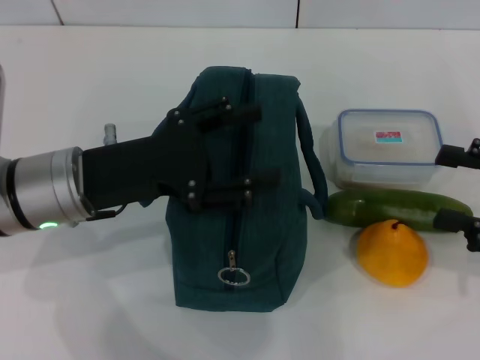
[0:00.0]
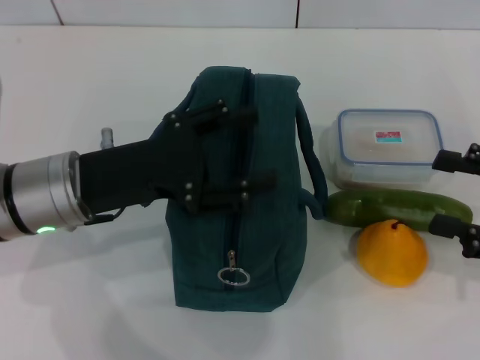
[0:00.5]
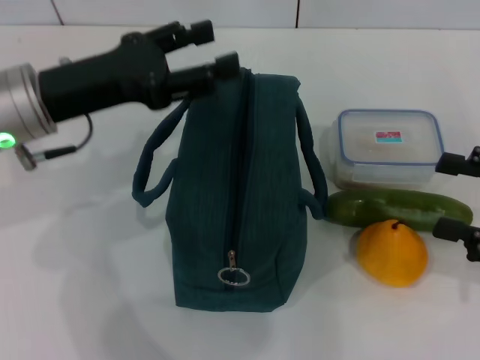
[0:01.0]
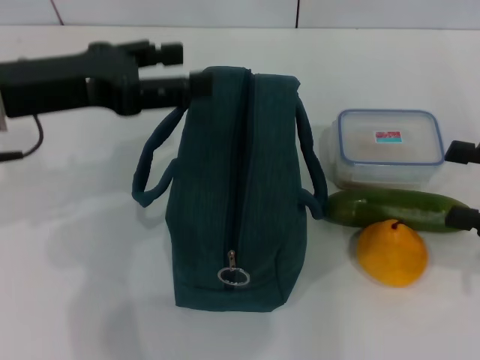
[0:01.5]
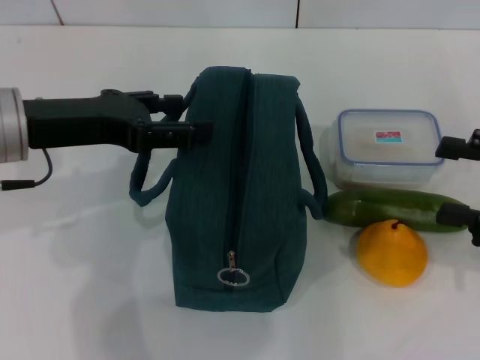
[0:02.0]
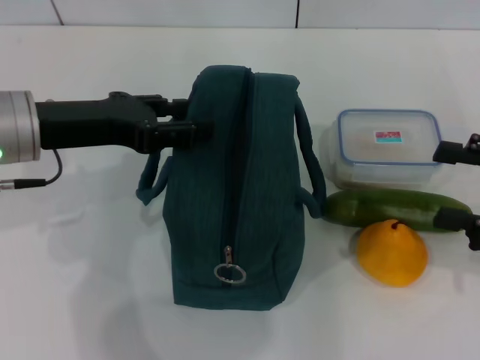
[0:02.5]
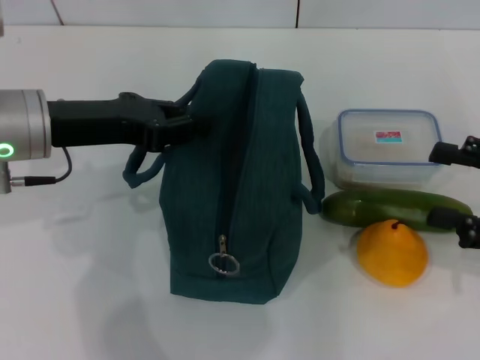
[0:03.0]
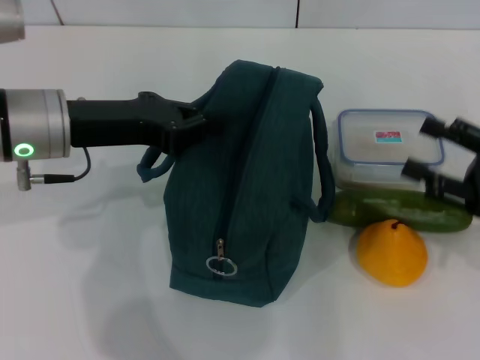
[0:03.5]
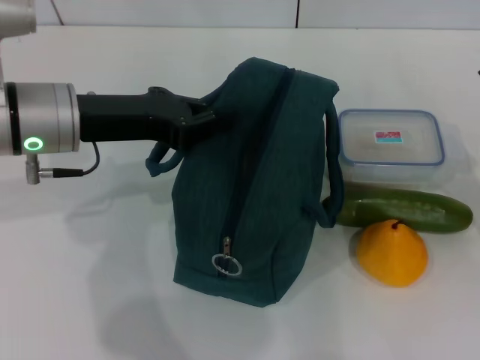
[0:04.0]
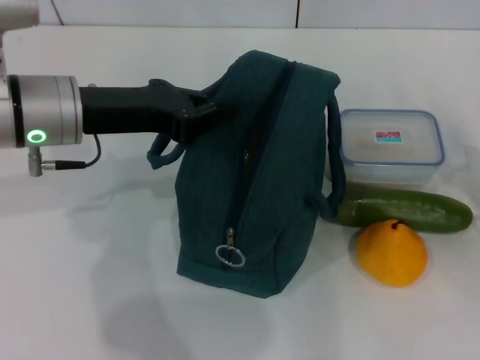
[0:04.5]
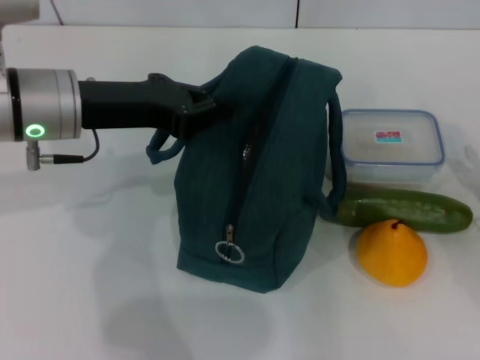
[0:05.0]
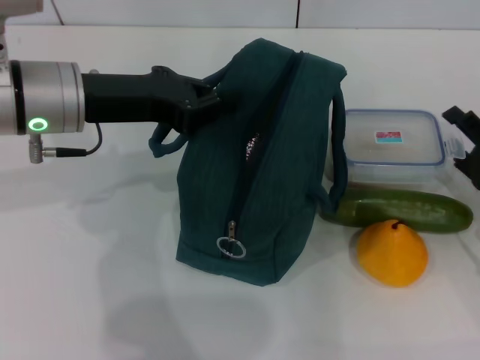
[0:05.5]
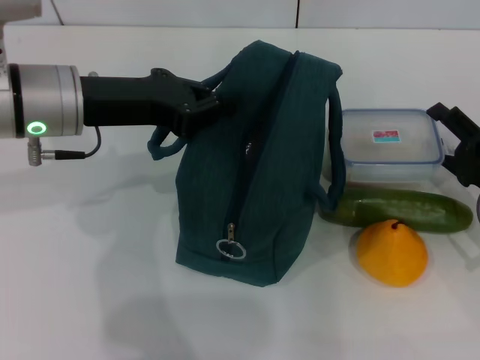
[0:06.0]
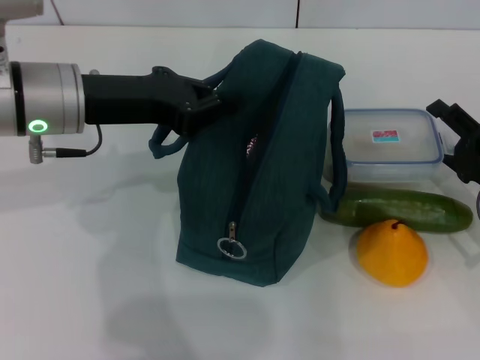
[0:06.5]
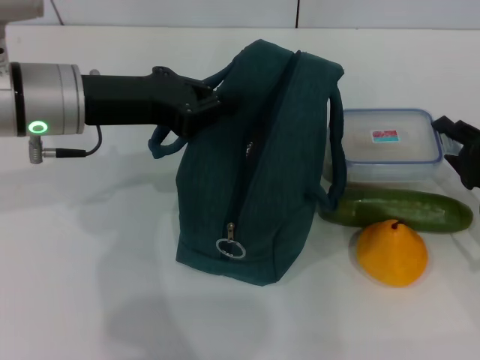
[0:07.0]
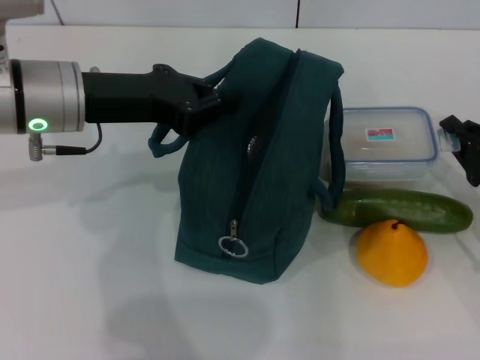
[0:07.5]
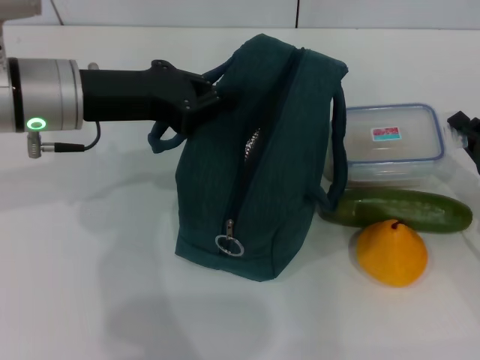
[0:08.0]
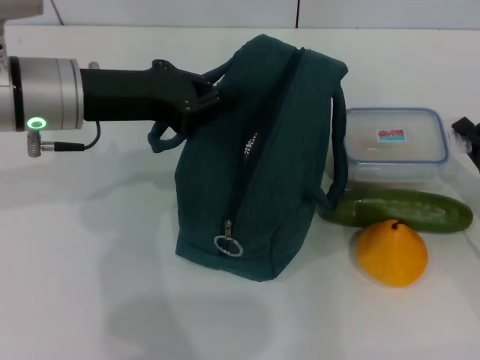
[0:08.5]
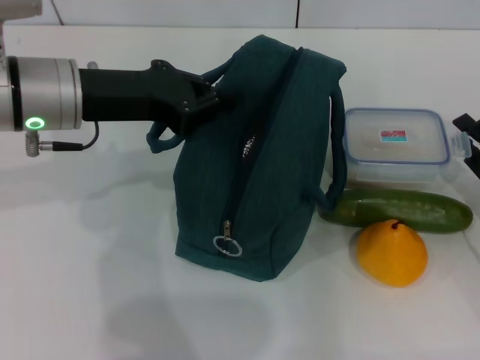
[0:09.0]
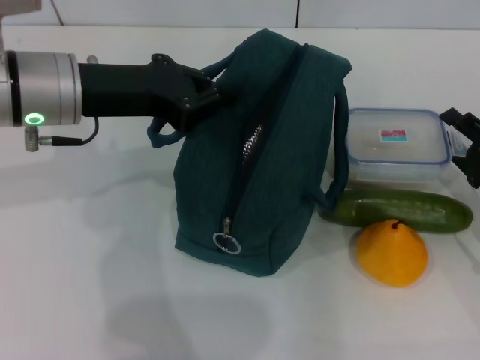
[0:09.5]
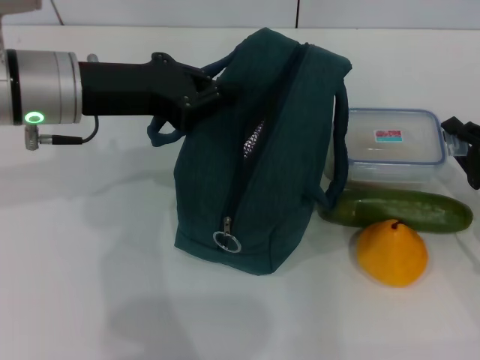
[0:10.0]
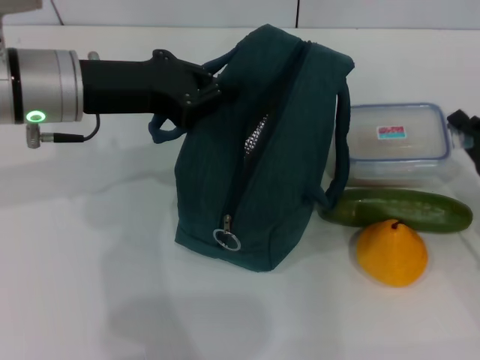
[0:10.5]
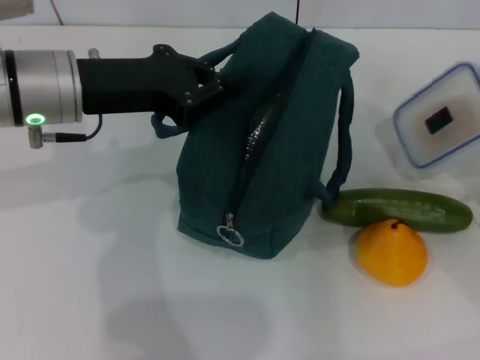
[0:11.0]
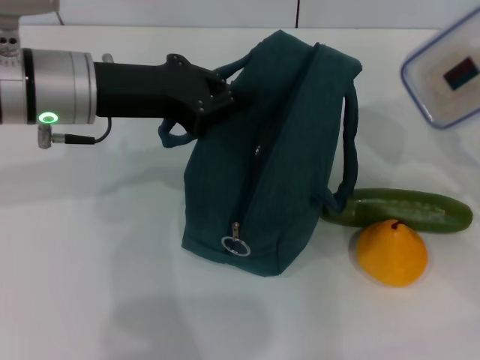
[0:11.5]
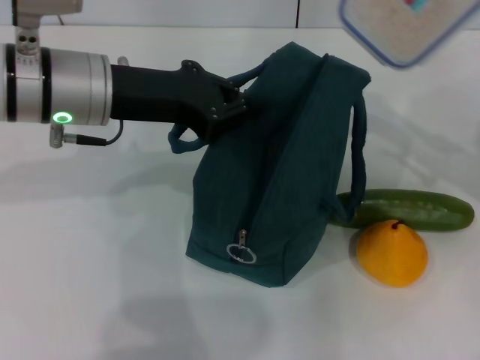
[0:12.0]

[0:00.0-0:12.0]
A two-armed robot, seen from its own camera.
Step, 0:00.0 to 0:03.0: Hold the lunch bag with your left hand.
Step, 0:04.0 to 0:10.0: Pick up the lunch box with your right hand.
0:00.0 to 0:02.0: The left gripper shifts some 5 cm upward.
0:02.0 to 0:04.0: The right gripper goes some 10 cm downward; the left gripper closes up.
0:04.0 to 0:06.0: The right gripper moves some 5 cm.
0:06.0 to 0:08.0: The right gripper closes.
0:08.0 to 0:10.0: The right gripper opens.
0:10.0 to 0:12.0: The right gripper shifts some 15 cm upward, and closes up.

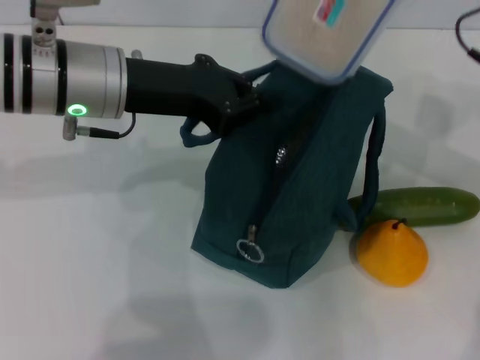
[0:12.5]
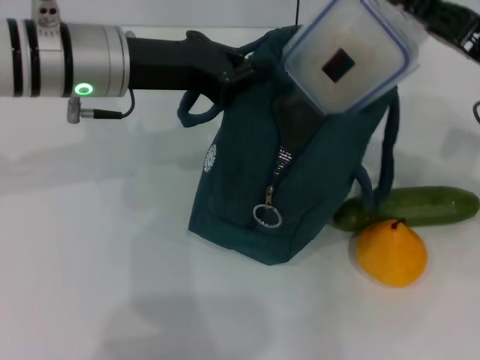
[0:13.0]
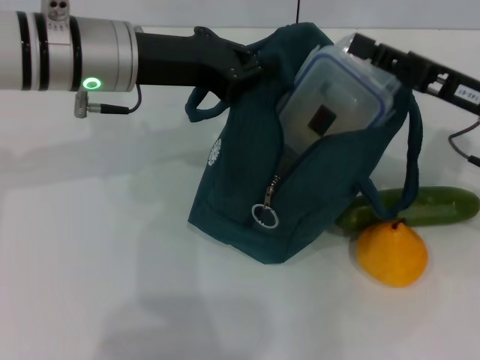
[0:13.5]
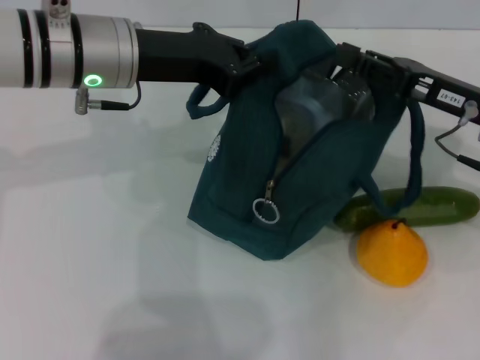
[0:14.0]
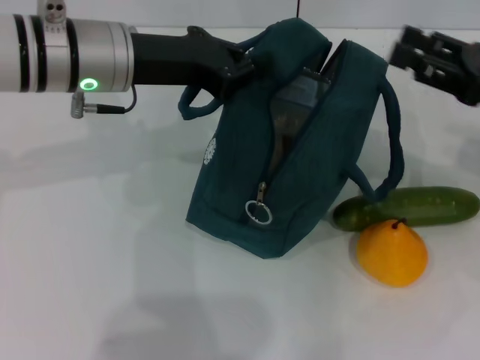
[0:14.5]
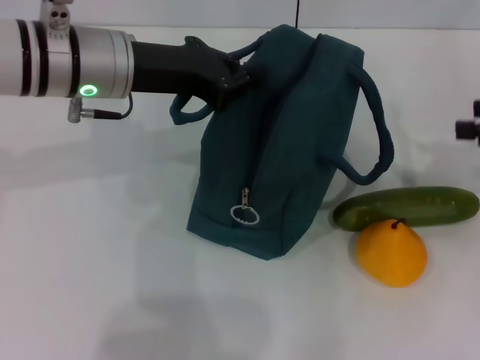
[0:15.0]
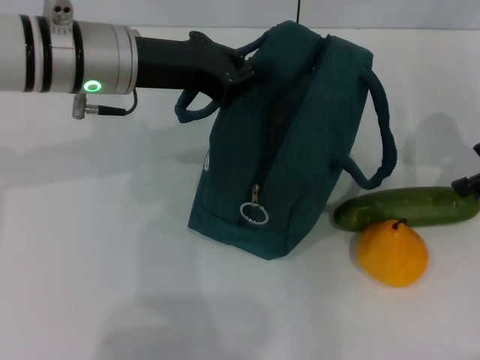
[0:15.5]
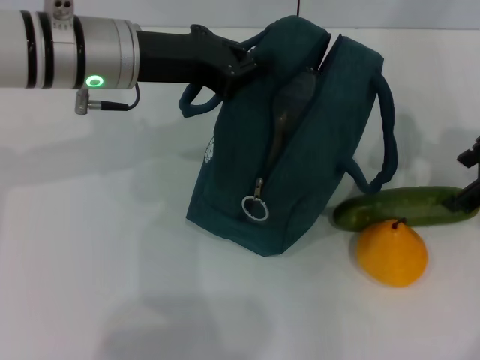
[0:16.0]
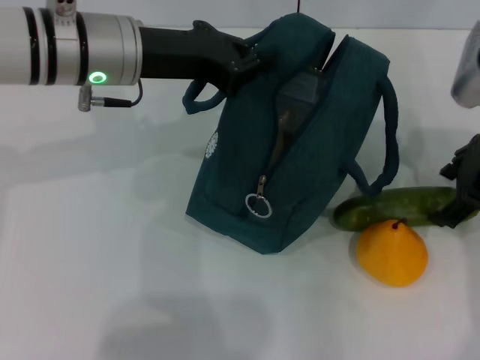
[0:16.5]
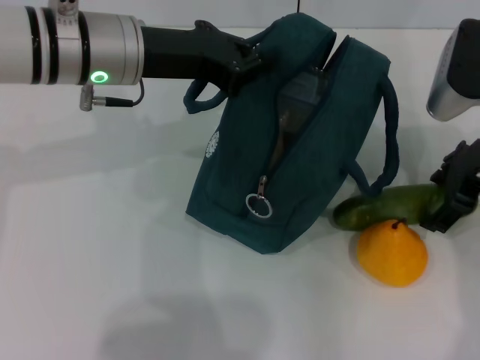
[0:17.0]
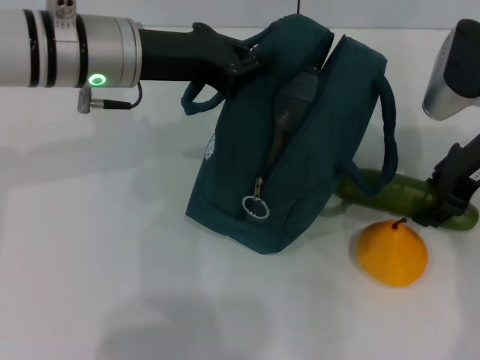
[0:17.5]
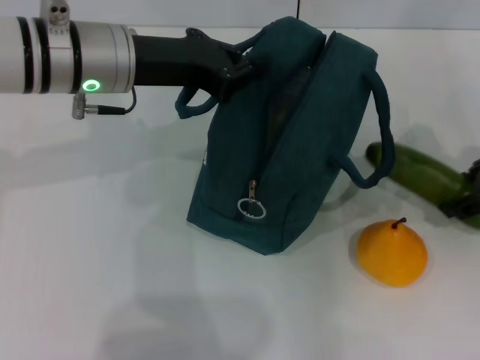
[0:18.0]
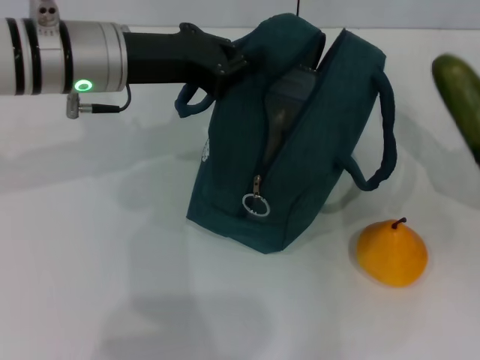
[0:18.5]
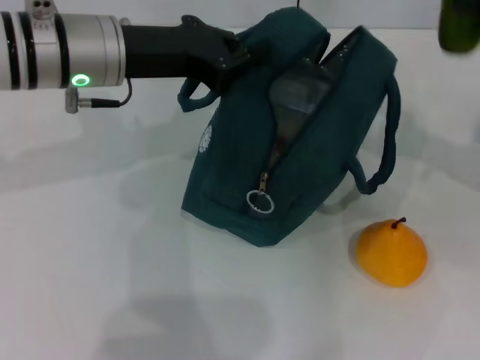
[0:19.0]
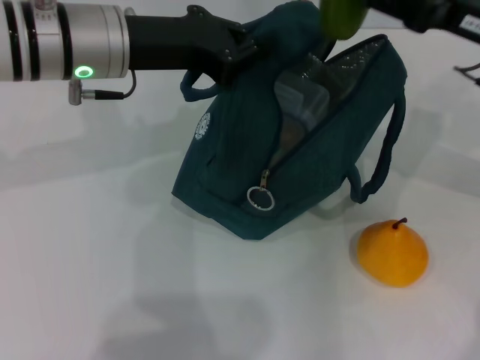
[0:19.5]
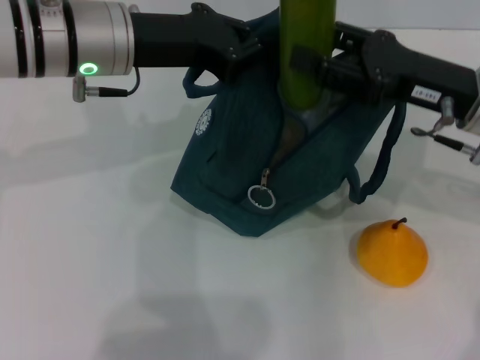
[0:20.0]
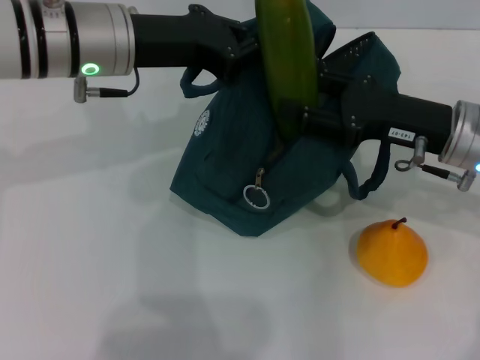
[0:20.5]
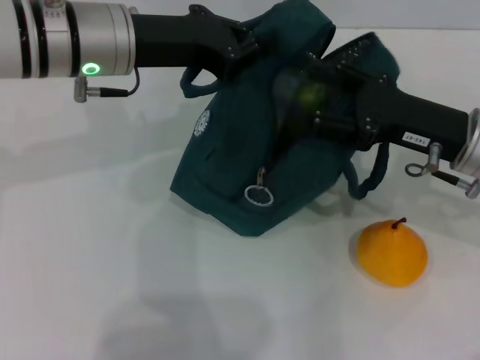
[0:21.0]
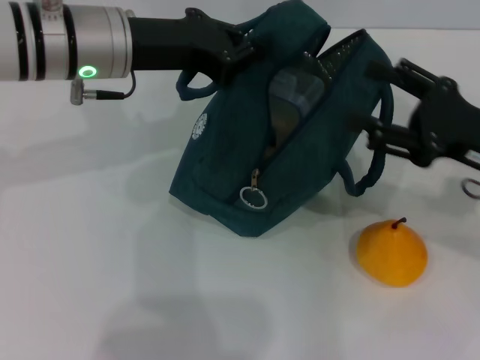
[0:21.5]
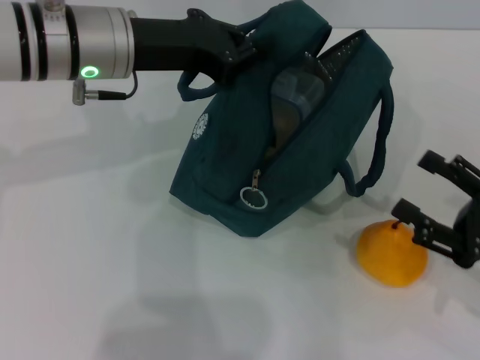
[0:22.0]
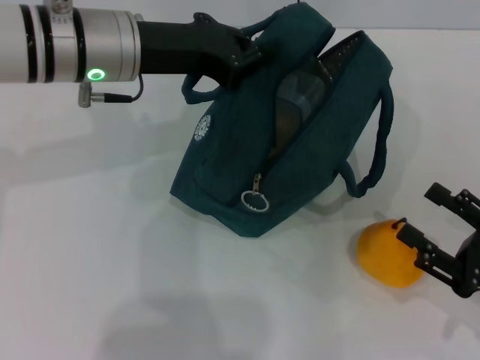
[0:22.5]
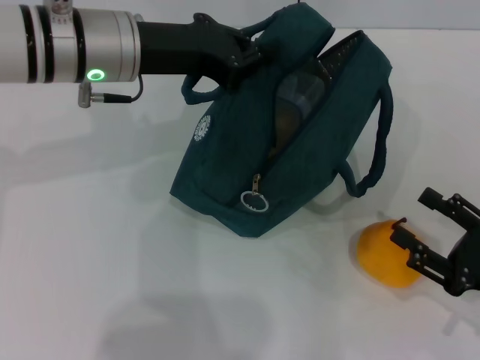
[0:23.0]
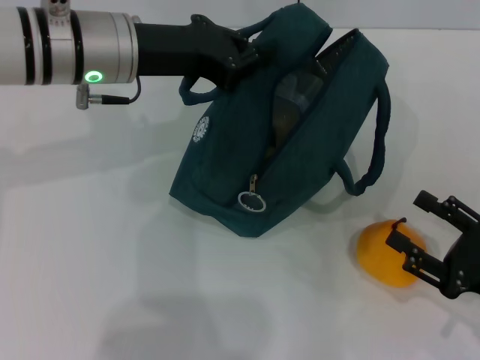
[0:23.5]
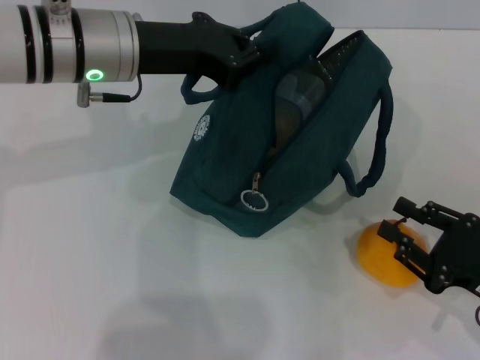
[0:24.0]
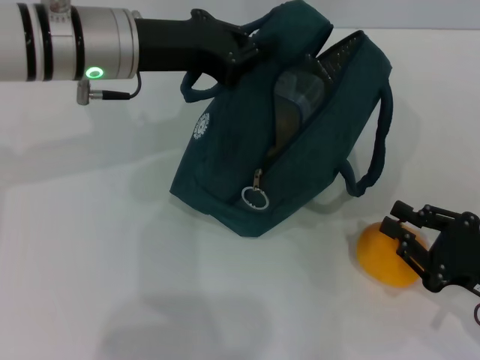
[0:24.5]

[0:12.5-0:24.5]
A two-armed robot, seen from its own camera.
Step, 0:14.5 to 0:17.0: Pick up the cucumber with your right hand.
Step, 0:17.5 to 0:21.0: Put the cucumber into the lunch bag with your right hand.
0:12.5 to 0:14.5: The right gripper travels to the right by some 5 cm, and opens up.
0:14.5 to 0:16.5: The right gripper is displaced to the left by roughly 5 cm, and opens its fingers.
0:16.5 to 0:18.5: The right gripper heads to the right, covering approximately 10 cm, and closes up.
0:18.5 to 0:20.5: The right gripper heads to the left, covering about 15 cm.
0:20.5 to 0:22.5: The right gripper goes some 20 cm backward, to the right and downward.
0:22.5 to 0:24.5: The right gripper closes up.

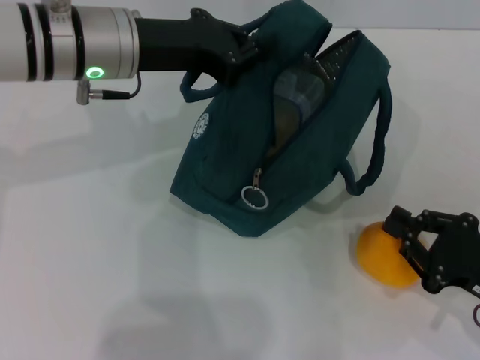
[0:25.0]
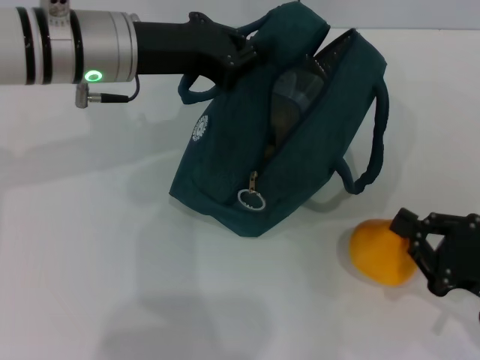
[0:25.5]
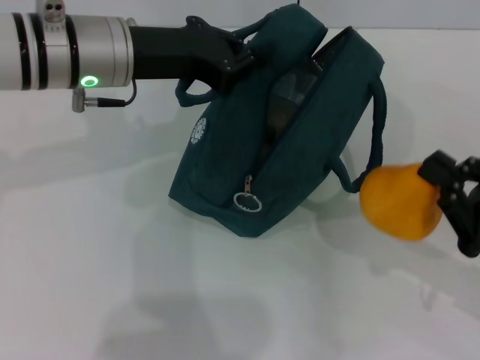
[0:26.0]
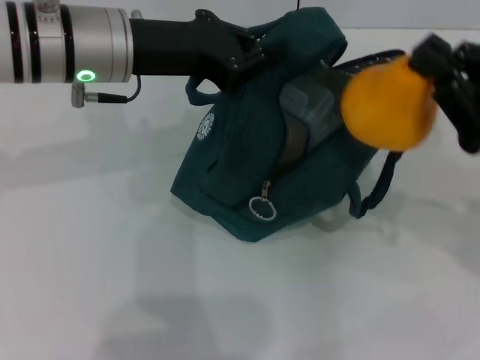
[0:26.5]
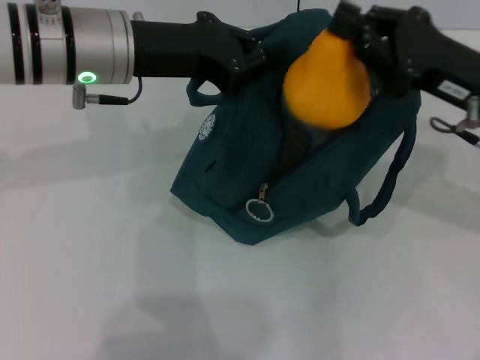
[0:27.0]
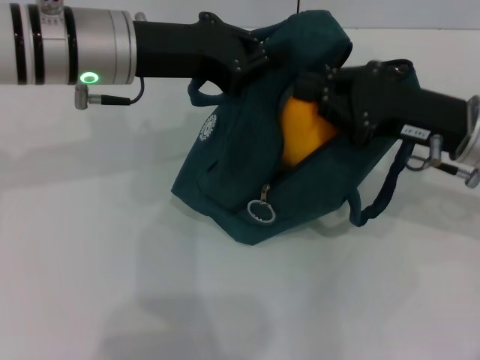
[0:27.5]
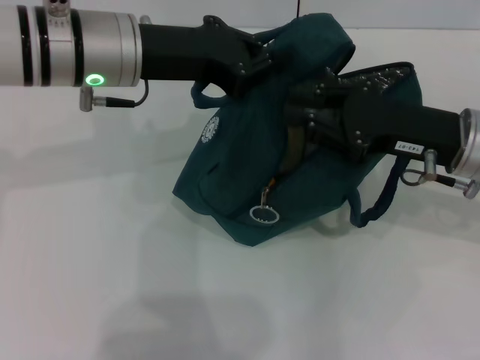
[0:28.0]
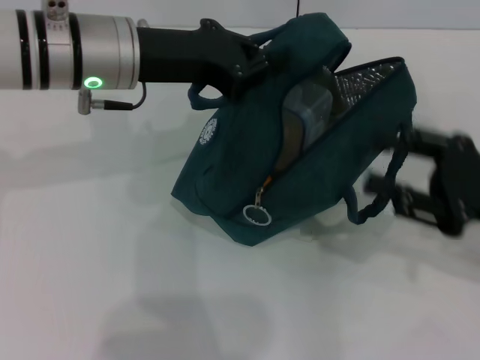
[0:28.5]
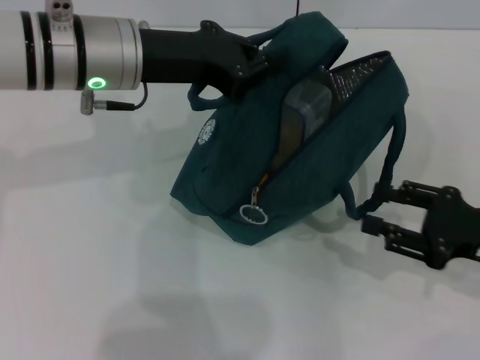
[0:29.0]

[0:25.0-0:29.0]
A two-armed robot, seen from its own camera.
0:25.0 to 0:27.0: The right gripper goes about 20 cm forward, upward and to the left.
0:27.0 to 0:29.0: The right gripper shifts about 15 cm downward, backward and to the right, and opens.
